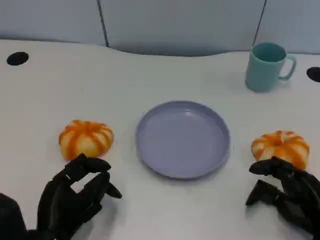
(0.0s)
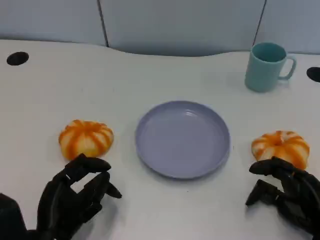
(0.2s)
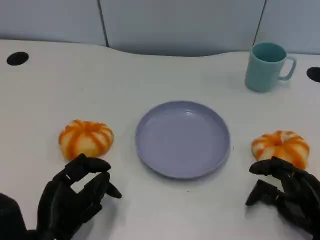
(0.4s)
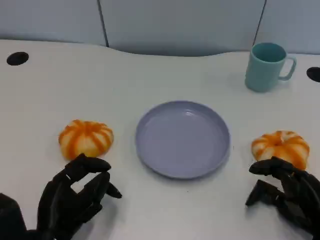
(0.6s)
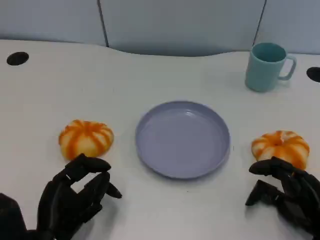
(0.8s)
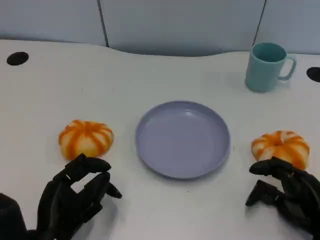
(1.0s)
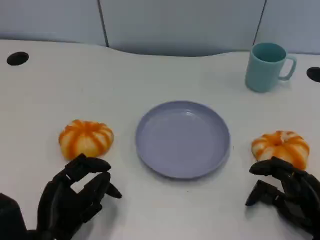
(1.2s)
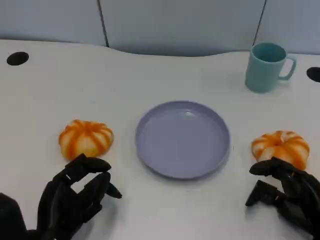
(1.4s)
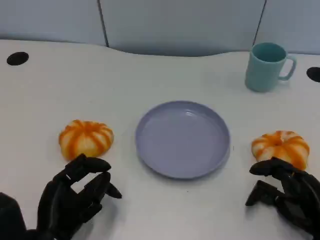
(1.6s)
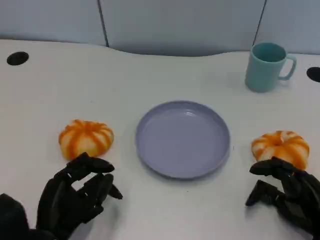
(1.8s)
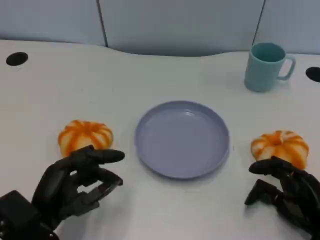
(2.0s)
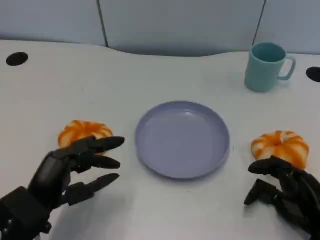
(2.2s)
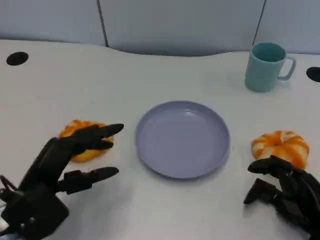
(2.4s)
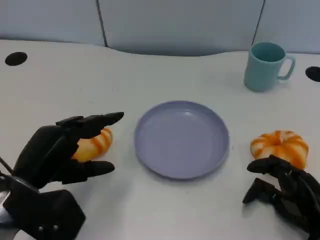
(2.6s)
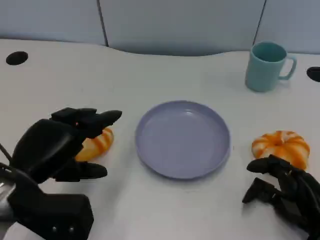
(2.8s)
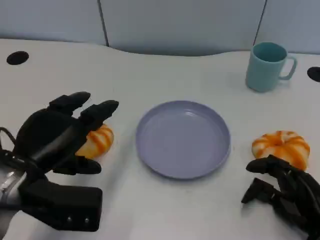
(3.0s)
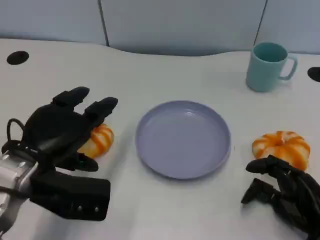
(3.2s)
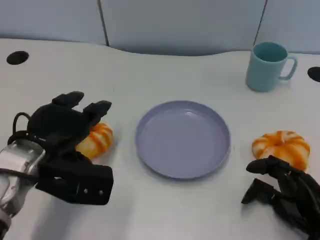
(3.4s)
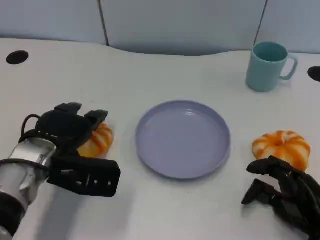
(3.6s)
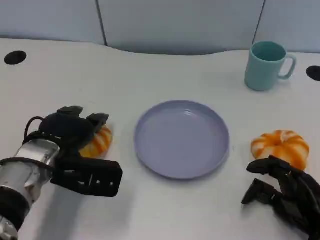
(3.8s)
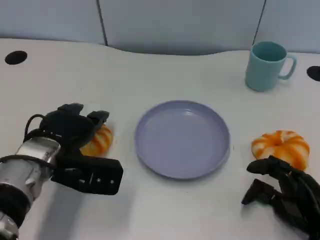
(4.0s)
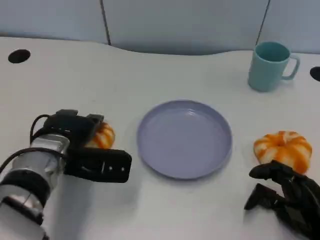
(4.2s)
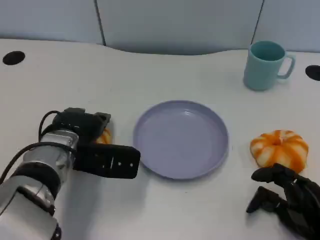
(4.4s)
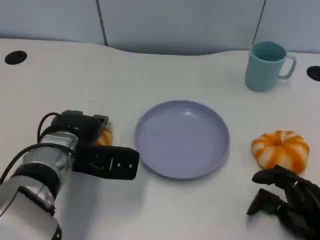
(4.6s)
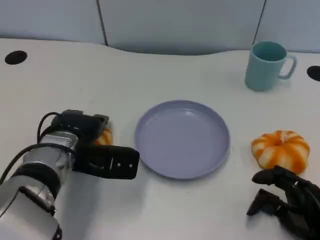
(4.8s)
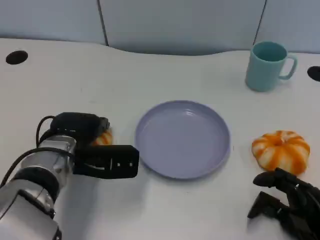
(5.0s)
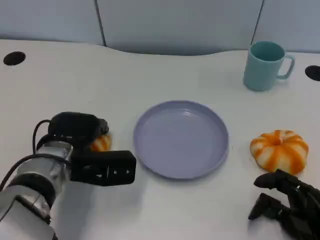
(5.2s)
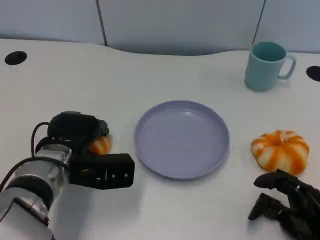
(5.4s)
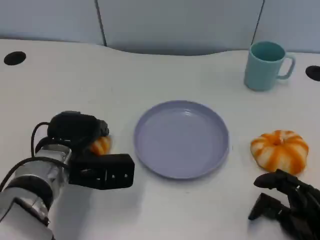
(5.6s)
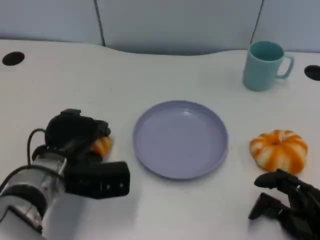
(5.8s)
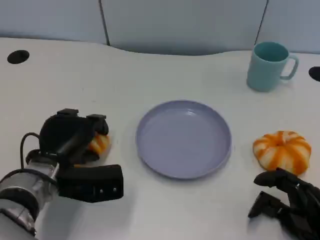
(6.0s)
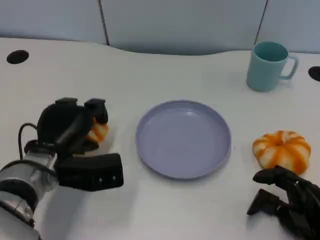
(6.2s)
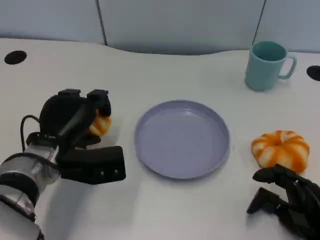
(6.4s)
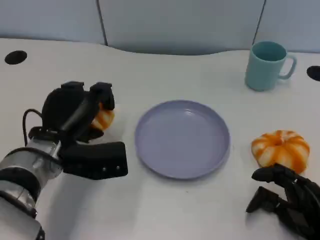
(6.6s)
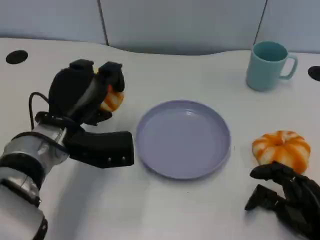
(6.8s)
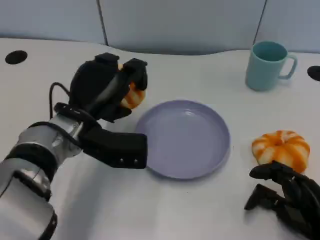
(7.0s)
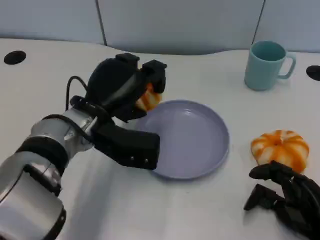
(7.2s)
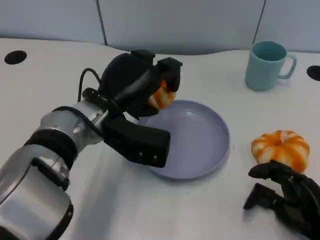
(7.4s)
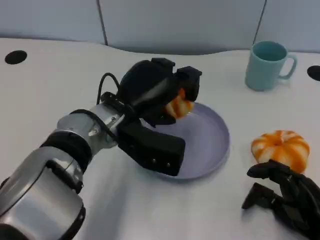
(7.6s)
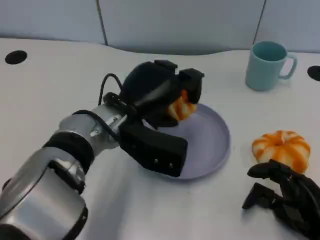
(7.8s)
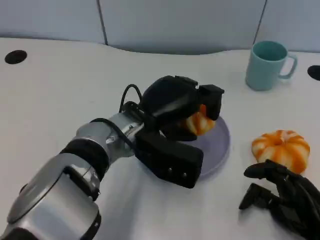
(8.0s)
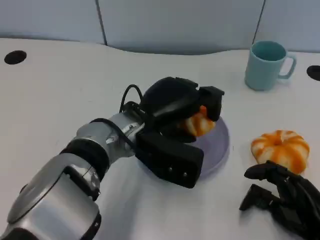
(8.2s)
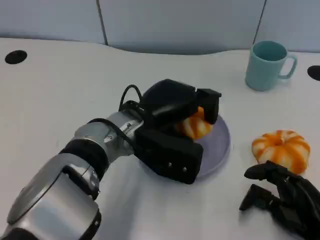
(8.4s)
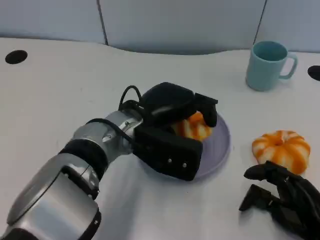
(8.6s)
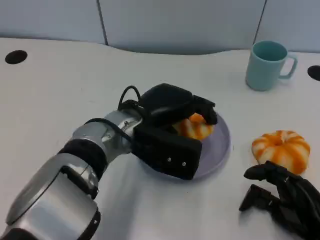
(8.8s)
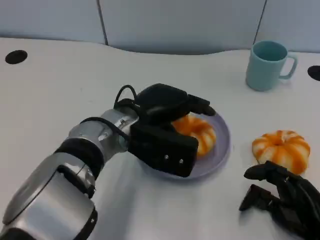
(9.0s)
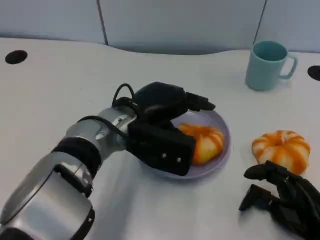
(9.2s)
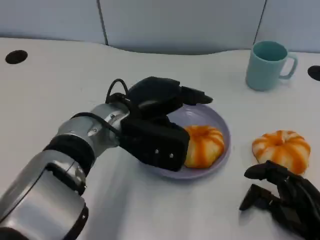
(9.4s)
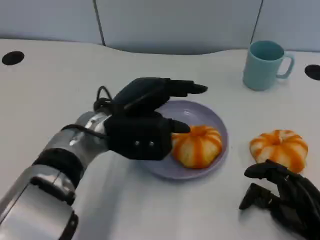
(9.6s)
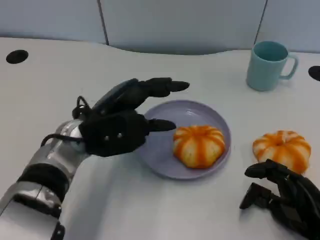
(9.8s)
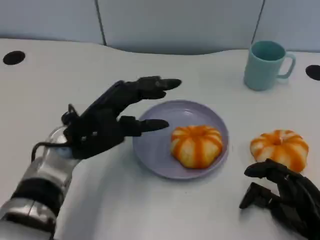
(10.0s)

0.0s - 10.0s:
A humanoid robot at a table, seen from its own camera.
Task of the whole recording: Grasp the bread from the table and place it into the plate.
0.0s - 1.4s: Both hands stay put.
1.4s - 2.8s: The left hand goes approximately 10 cm upward.
2.8s - 4.2s: The left hand heads forward and to the right, covering roughly 10 cm.
5.8s - 7.2s: The left hand goes some 10 cm upward and to the right.
7.2s - 8.6s: The left hand moves to the right, approximately 5 cm.
8.6s - 10.0s: The left hand shifts approximately 10 cm to the left.

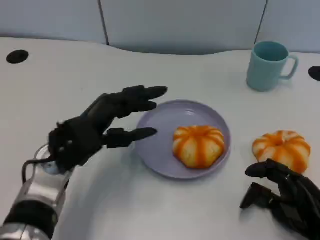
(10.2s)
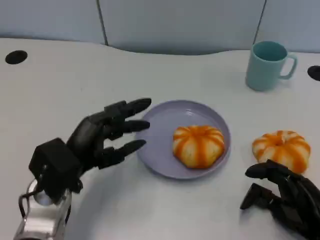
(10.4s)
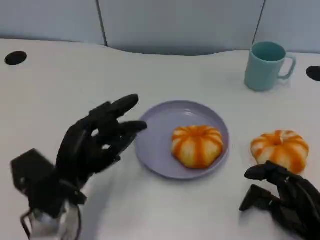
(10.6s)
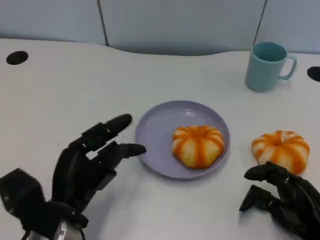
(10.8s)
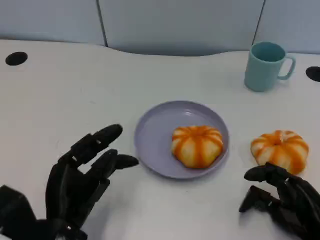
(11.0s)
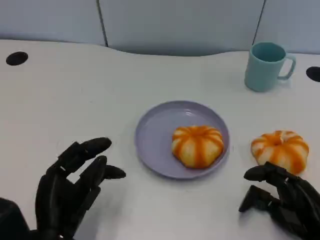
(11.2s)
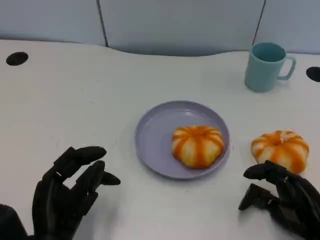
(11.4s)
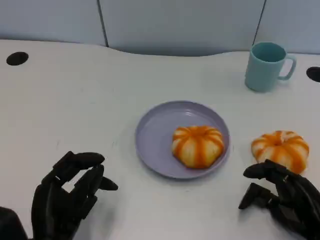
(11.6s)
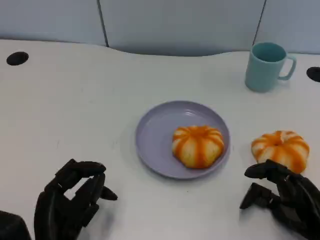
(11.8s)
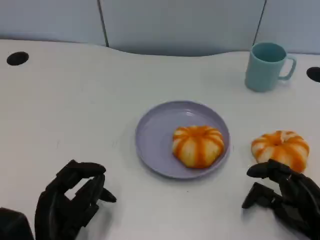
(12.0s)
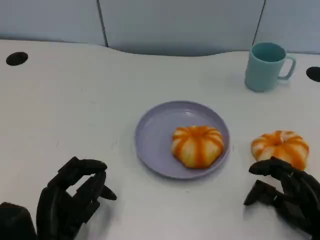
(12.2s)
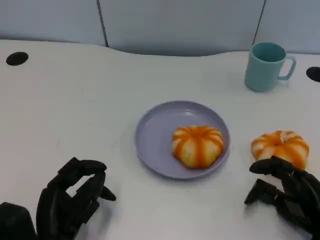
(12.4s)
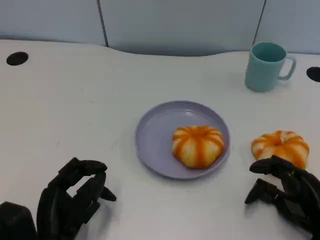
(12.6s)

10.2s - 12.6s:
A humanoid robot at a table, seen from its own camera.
Task of the whole recording: Grasp the bread from the table and place it into the plate.
10.2s - 11.4s: The left hand moves backward, roughly 10 cm.
11.4s - 12.6s: The hands move only a little.

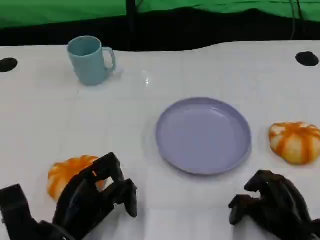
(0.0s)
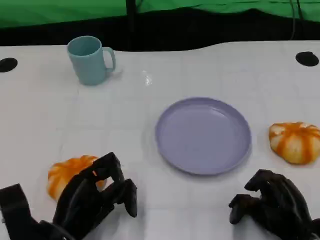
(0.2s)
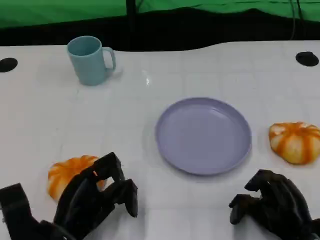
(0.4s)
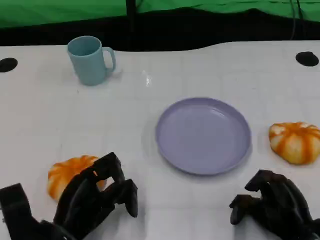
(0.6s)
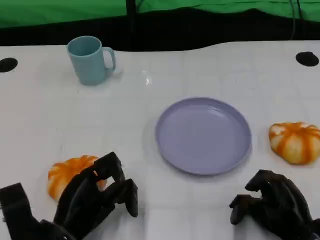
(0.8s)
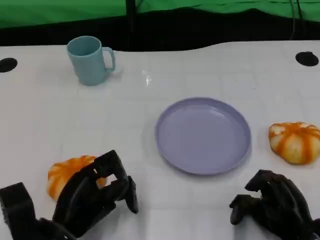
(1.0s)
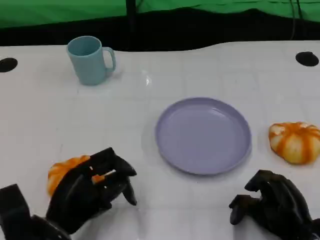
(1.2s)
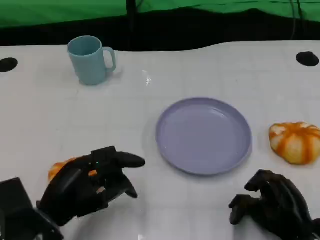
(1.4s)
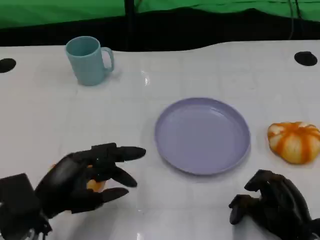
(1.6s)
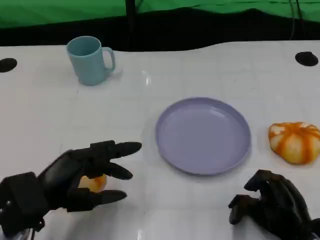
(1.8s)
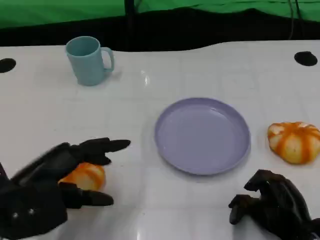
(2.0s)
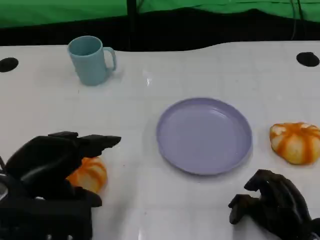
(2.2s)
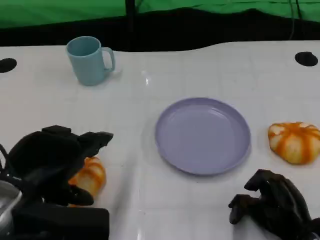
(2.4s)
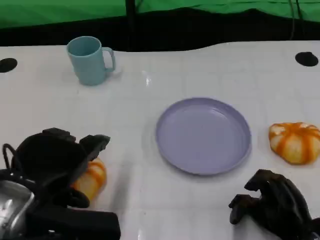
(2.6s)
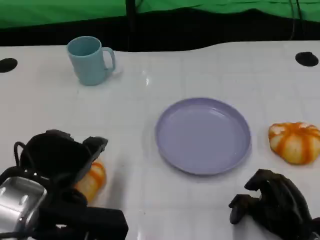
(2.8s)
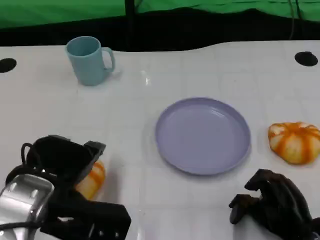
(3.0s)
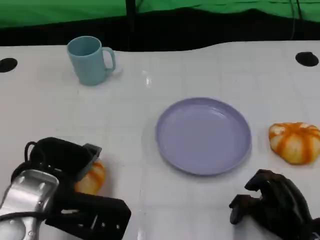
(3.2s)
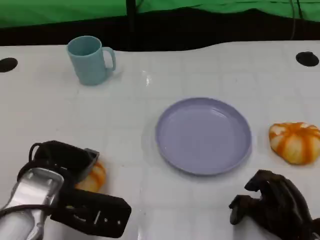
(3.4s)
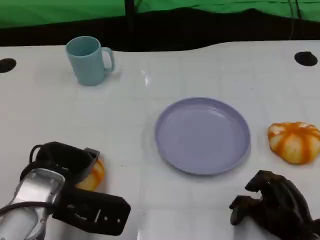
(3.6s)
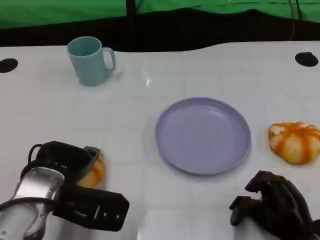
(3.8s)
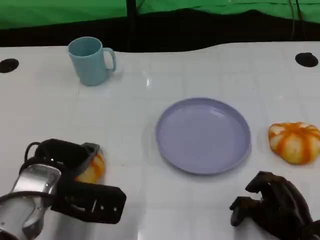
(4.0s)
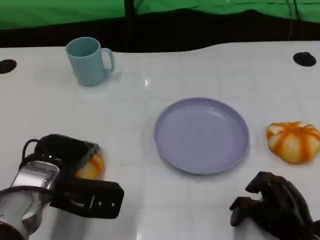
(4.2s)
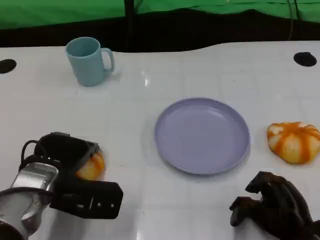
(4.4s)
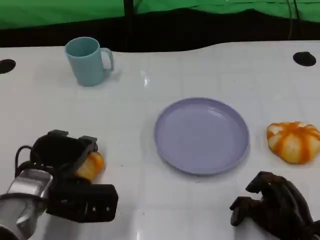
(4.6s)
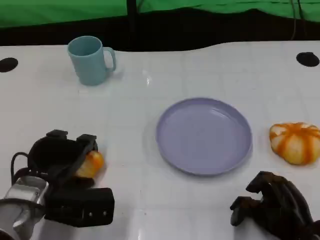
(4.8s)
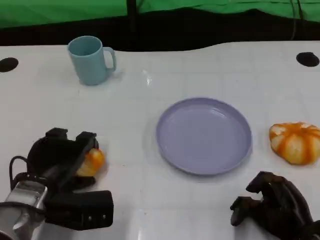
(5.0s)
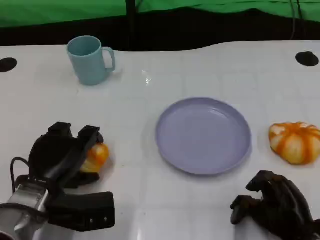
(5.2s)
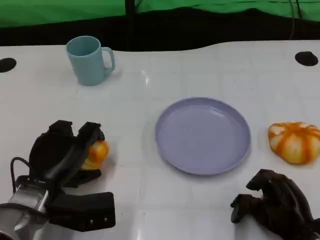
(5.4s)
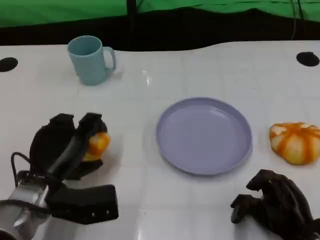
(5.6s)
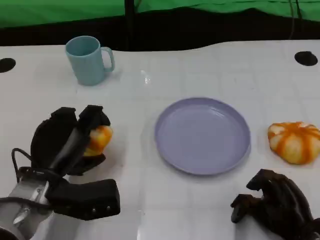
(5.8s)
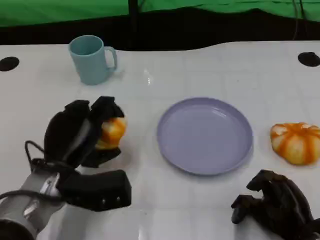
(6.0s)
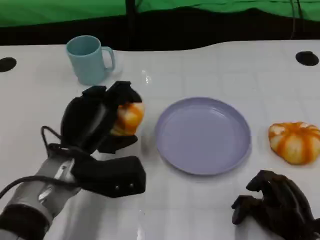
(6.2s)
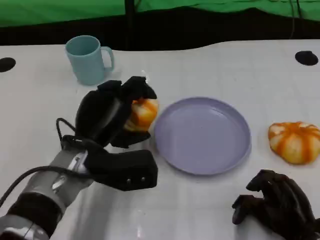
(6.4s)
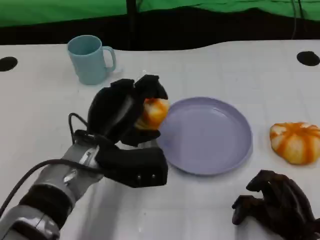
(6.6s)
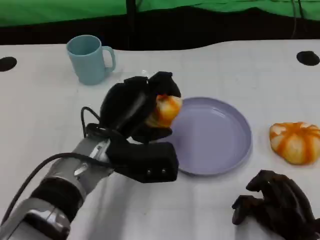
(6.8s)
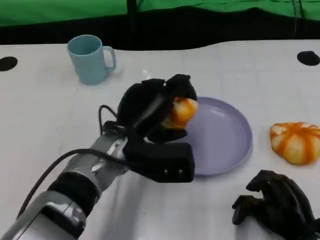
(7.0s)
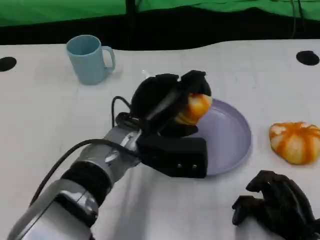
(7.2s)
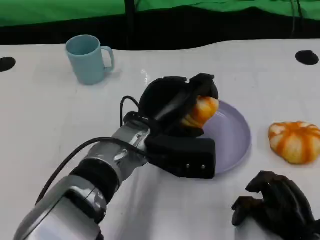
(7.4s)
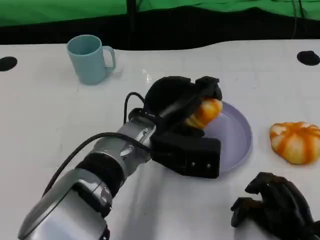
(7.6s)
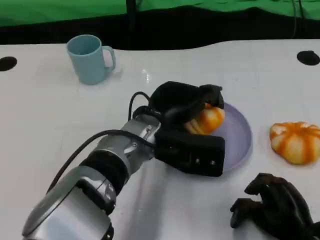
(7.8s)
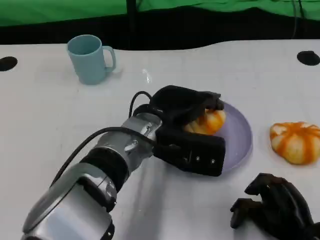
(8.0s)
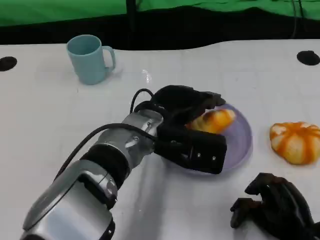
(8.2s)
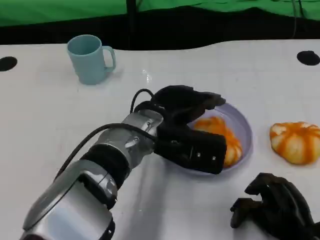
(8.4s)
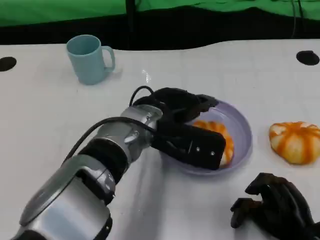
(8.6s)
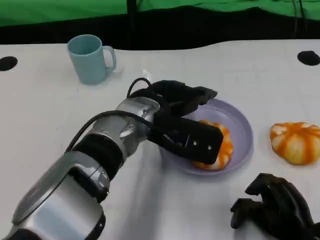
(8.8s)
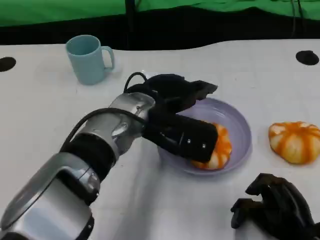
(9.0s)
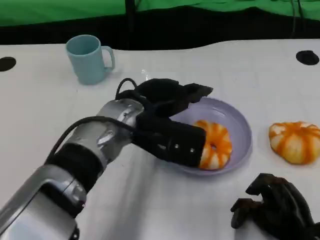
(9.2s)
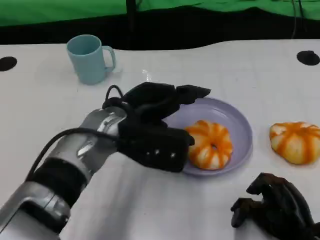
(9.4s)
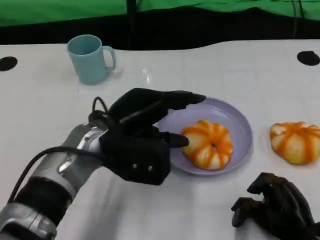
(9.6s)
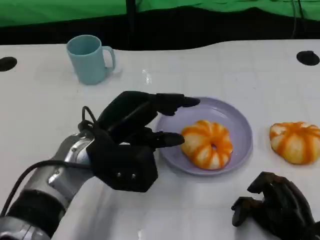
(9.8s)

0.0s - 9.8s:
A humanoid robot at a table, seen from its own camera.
Task of the whole recording: Grasp the bread from the table and place it into the plate.
1.4s - 2.8s: The left hand travels upward by about 10 cm.
2.8s - 4.2s: The left hand travels downward and forward by about 10 cm.
5.6s - 7.0s: The left hand shifts about 15 cm to the right and upward.
8.4s - 9.8s: The left hand travels to the left by approximately 10 cm.
